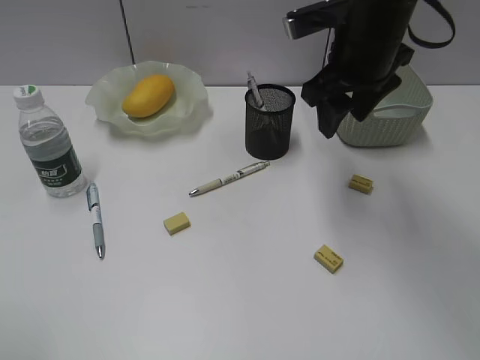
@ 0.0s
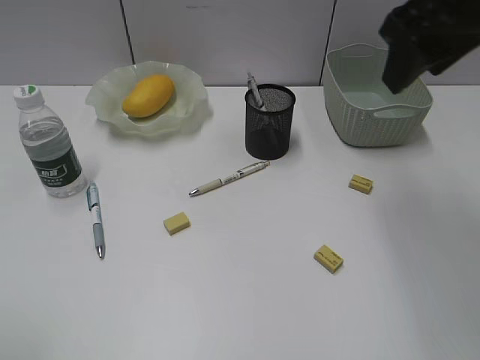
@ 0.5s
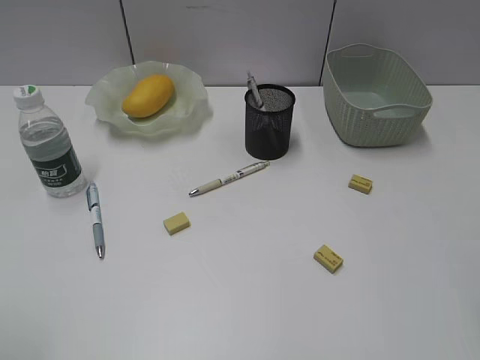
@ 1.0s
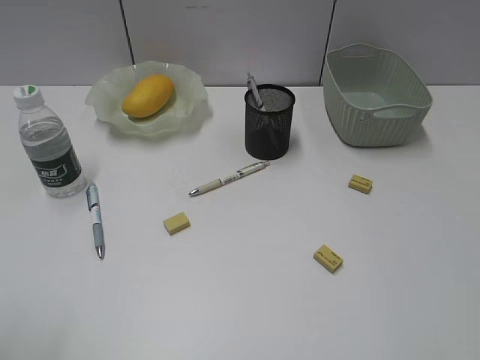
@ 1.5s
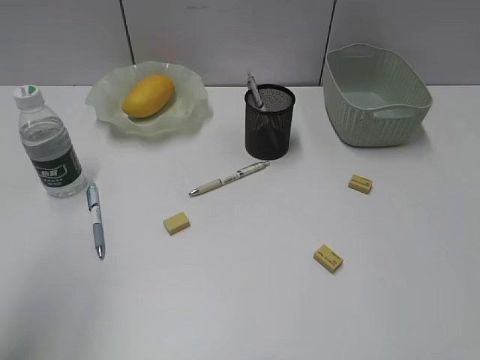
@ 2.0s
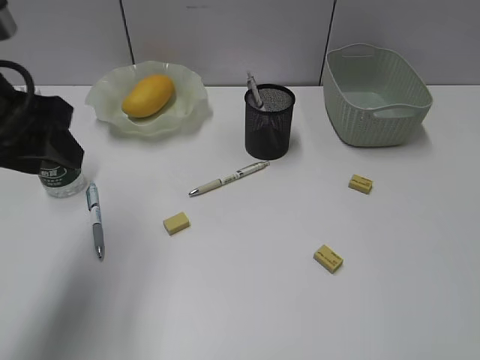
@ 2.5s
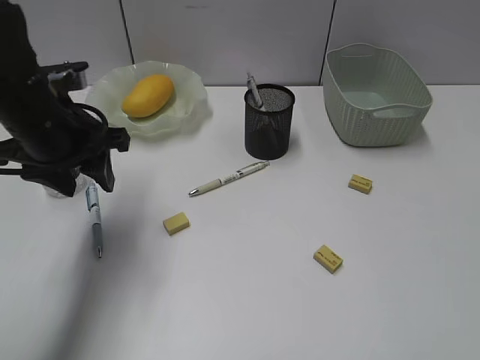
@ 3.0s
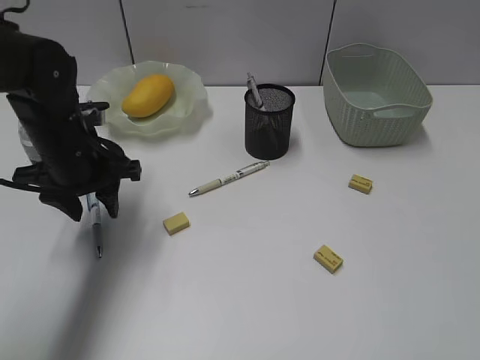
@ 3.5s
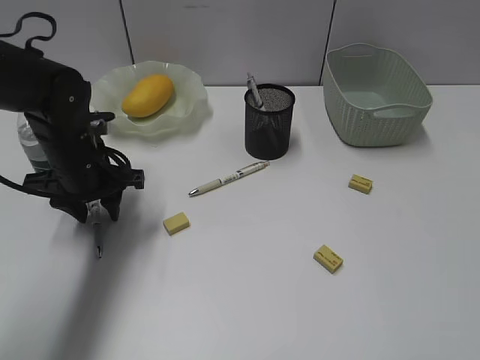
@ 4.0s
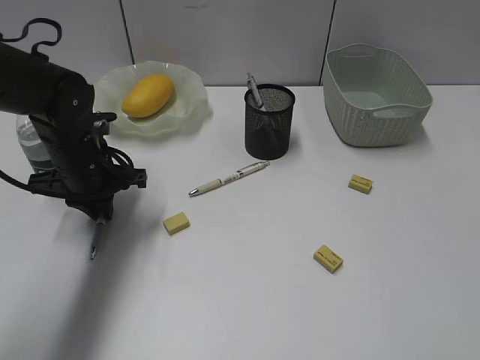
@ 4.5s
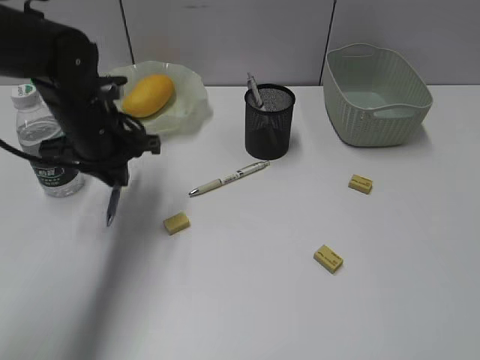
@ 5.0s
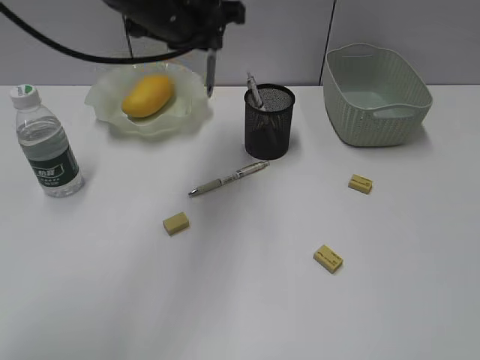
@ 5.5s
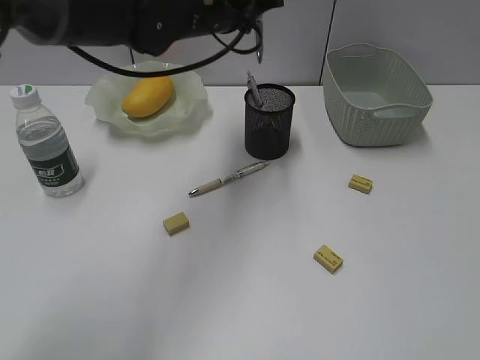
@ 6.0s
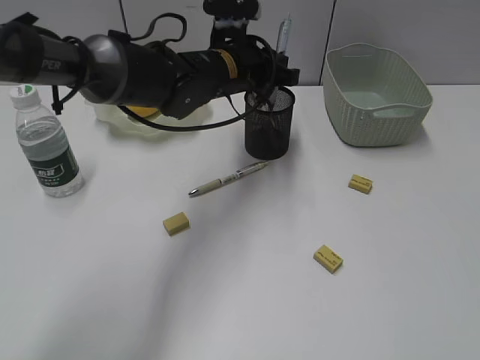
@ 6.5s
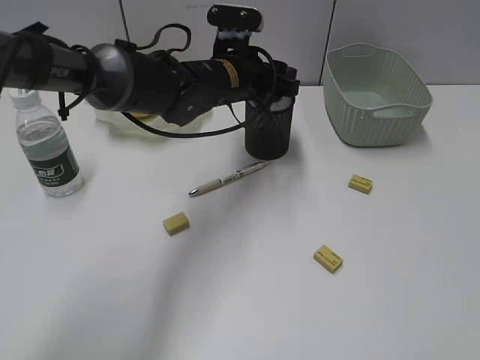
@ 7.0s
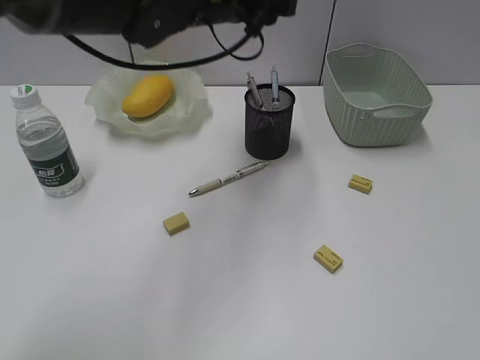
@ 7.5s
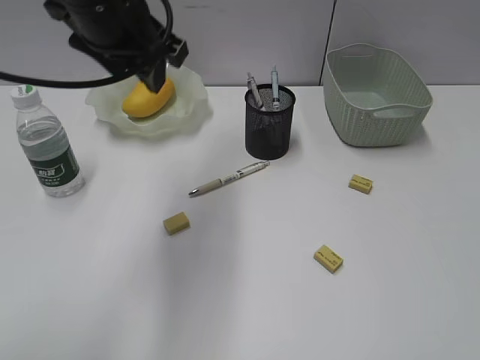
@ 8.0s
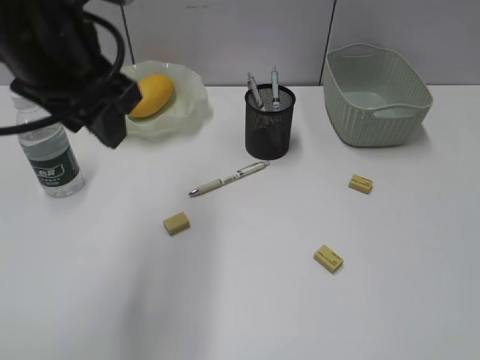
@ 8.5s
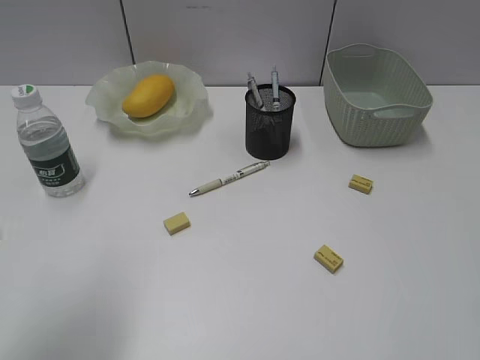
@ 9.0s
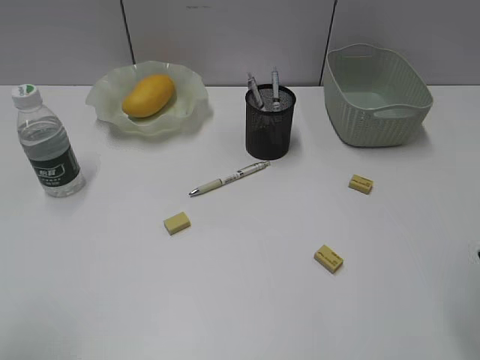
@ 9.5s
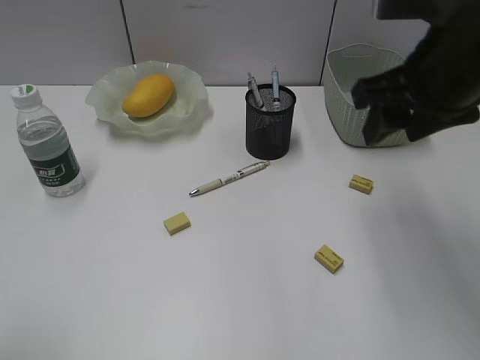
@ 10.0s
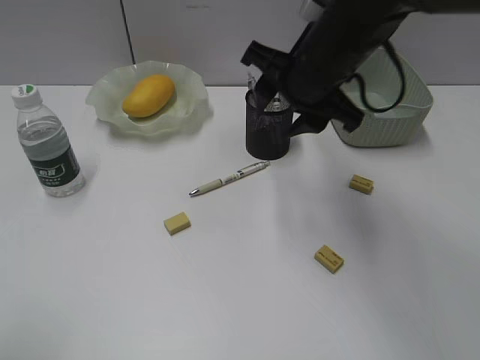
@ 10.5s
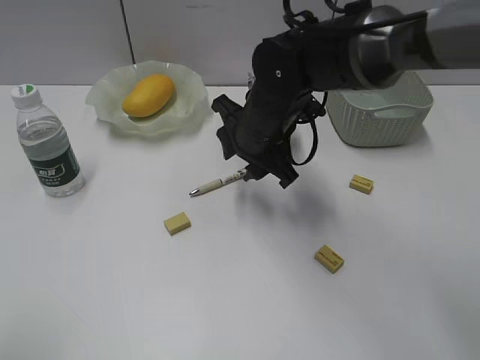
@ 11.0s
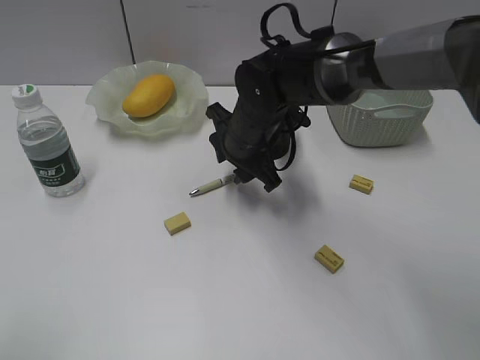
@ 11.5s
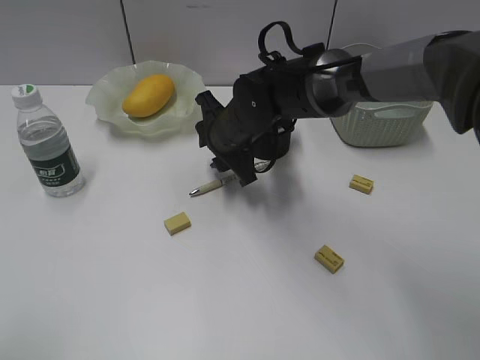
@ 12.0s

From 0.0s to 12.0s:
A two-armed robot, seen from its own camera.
Step, from 0.0s to 4.5s: Grasp the blue pen with left gripper.
Step, from 5.0s to 7.0s: Place the blue pen in pen holder with left gripper.
From 0.0s to 2.0s: The left gripper moves forward, some 10 cm; the right gripper goes approximately 35 cm backward and to the right.
From 2.0s to 4.0s: The left gripper travels forward, downward and to the right by roughly 30 cm.
From 4.0s to 6.0s: The left gripper travels to the right, upward and forward by roughly 20 cm, and closes.
From 6.0s to 8.0s: The left gripper is displaced backward and to the left by some 10 cm, travels downward and back again, about 10 cm each way, and opens.
From 8.0s to 10.0s: The right gripper shifts approximately 25 cm forward and to the left. The left gripper shifts about 35 cm backward and to the left.
From 10.0s to 12.0s: The right gripper shifts some 25 cm to the left, downward and forward.

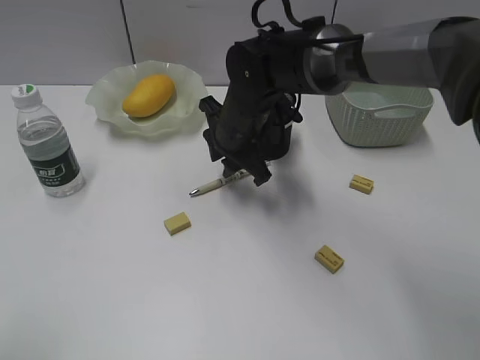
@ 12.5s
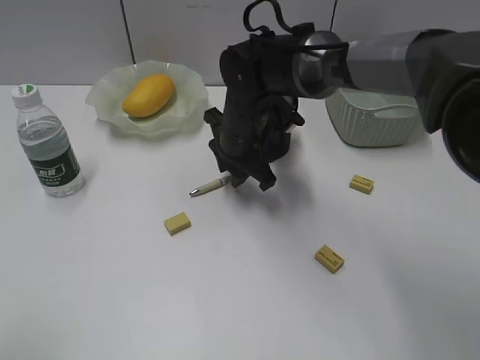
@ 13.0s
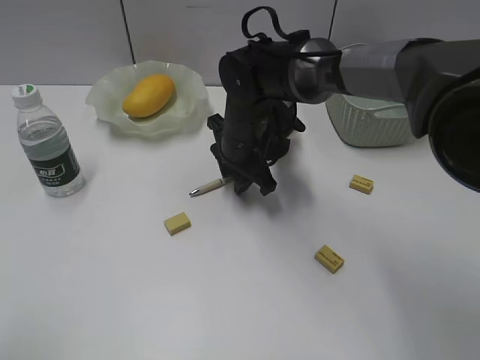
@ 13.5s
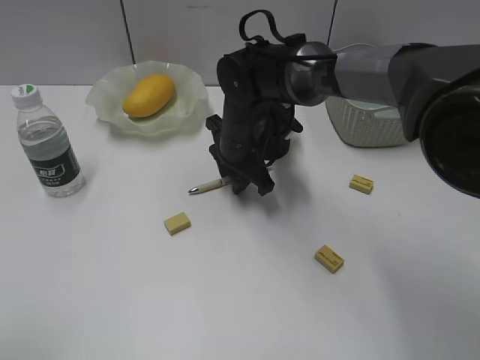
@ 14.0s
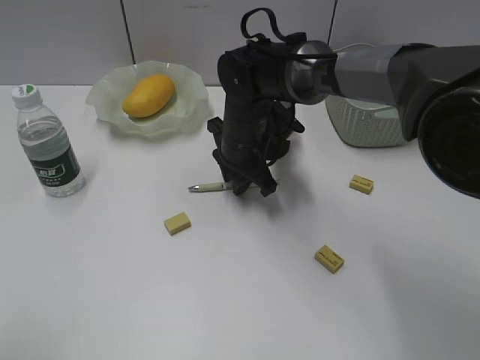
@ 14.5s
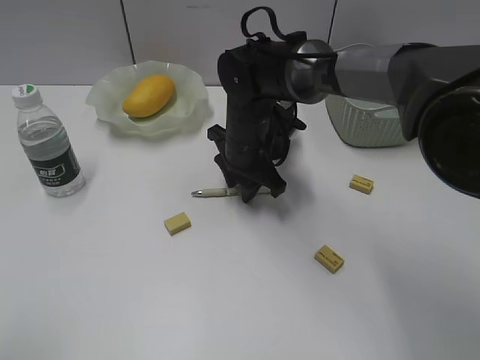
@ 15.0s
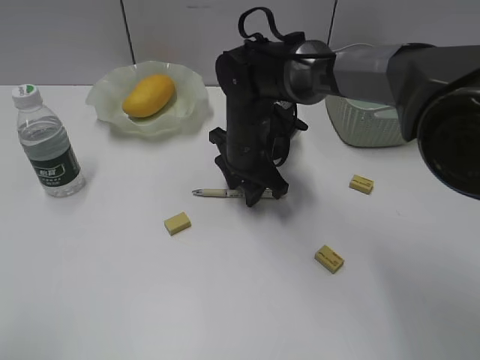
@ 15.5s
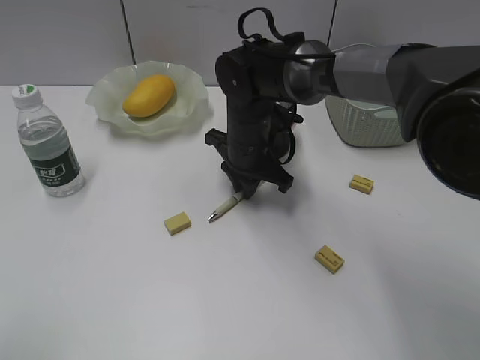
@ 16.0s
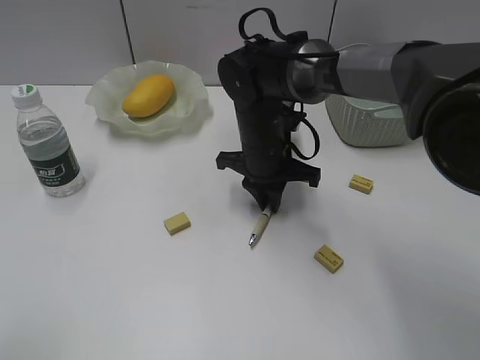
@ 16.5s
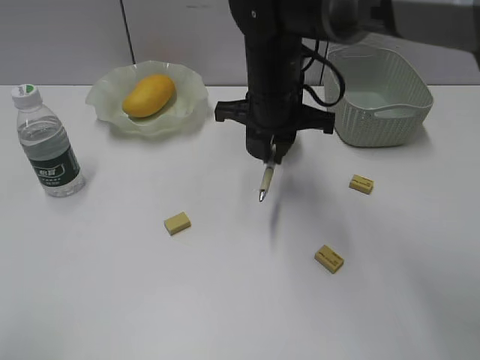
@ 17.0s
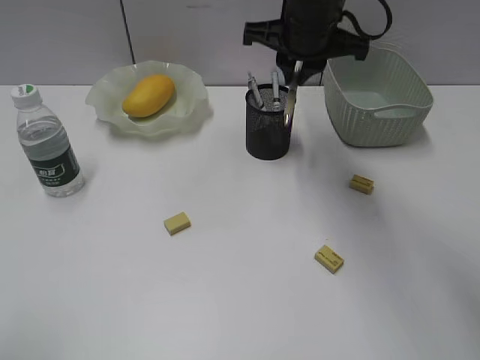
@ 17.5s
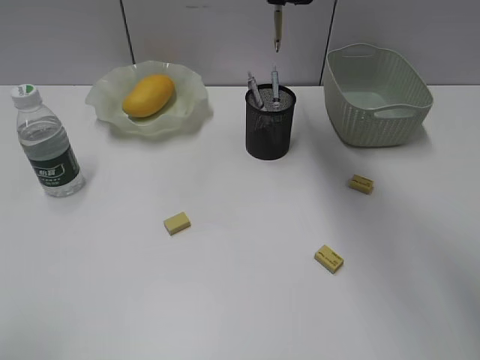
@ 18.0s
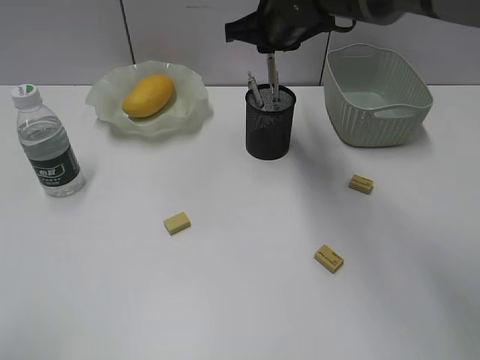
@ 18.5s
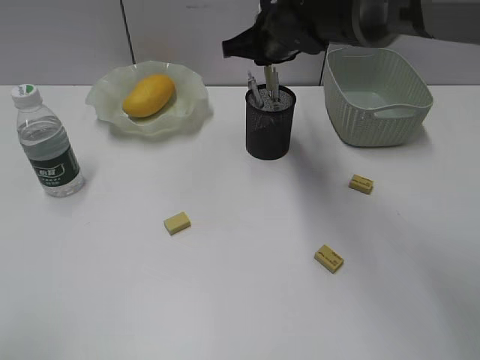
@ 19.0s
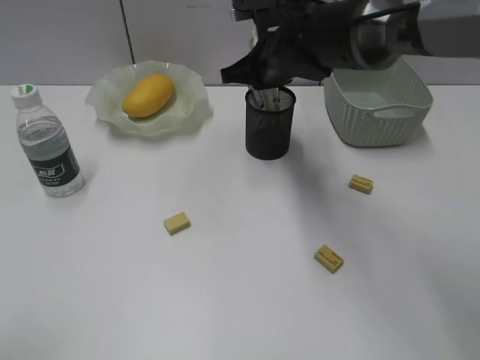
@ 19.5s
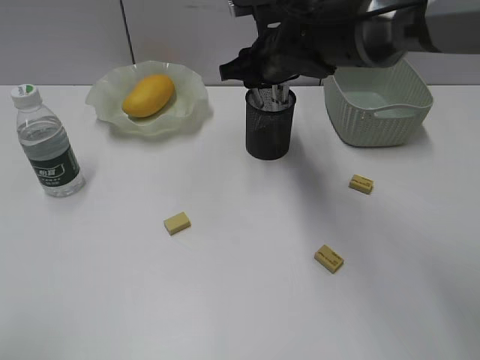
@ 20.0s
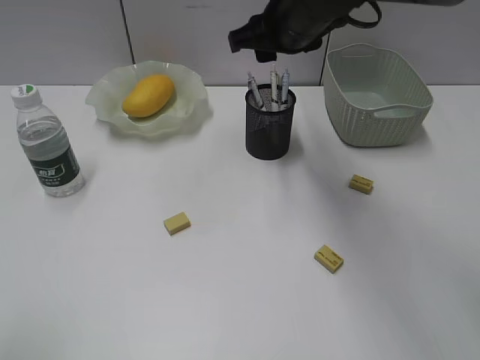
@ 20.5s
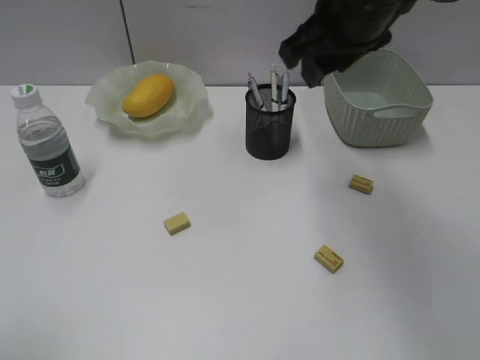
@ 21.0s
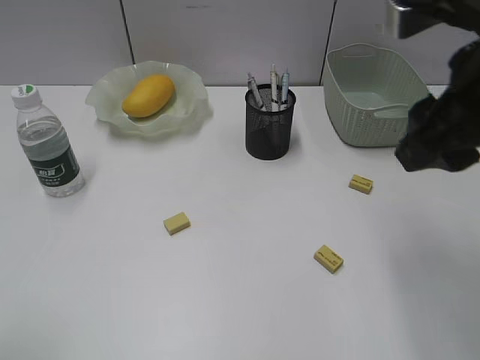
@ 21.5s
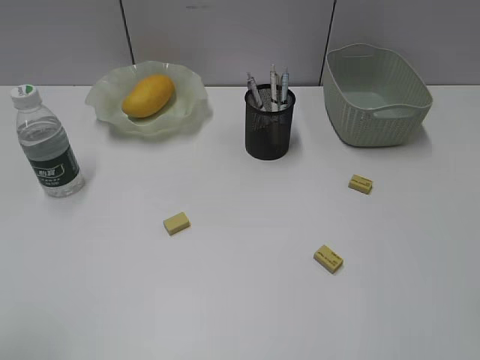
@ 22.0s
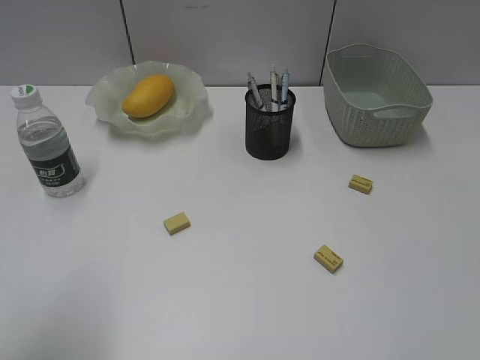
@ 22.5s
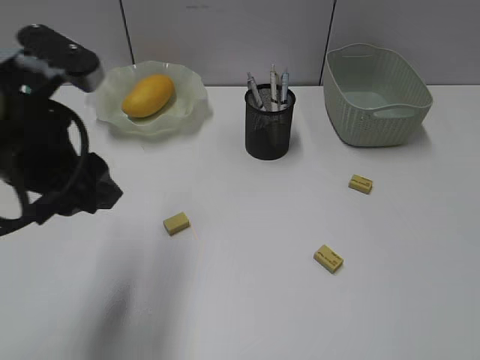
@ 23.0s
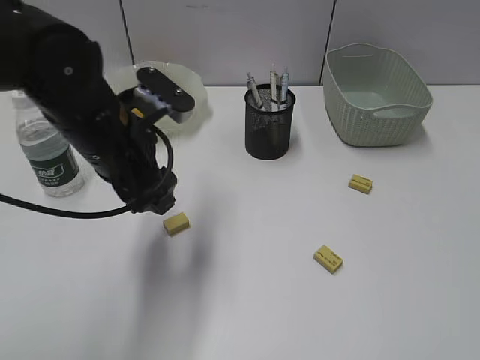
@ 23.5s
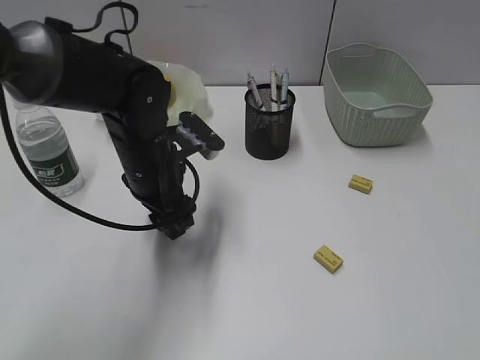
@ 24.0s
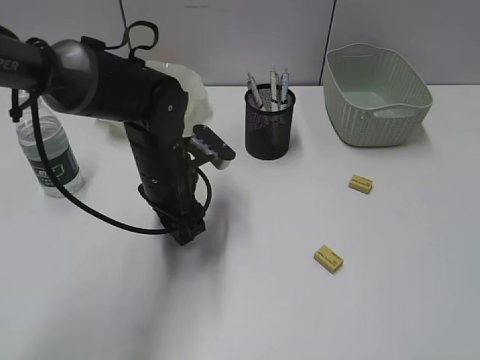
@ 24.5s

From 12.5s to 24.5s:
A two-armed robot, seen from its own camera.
Step, from 12.5s to 16.0s: Grasp the yellow pen with right gripper.
Step, from 16.5s to 20.0s: Place the yellow pen in pen holder with right gripper.
From 12.5s to 14.5s: The grippers stay close to where they were, moving slightly.
From 16.5s to 18.5s: The right gripper is displaced upward and forward by about 15 cm.
From 18.5s to 20.5s: The right gripper is displaced backward by approximately 5 cm, and opens.
From 20.5s to 22.5s: The left gripper ends up about 5 cm from where it was, while the right gripper travels backward and to the right by about 40 cm.
From 22.5s to 24.5s: The left gripper goes about 35 cm forward, to the right and downward.

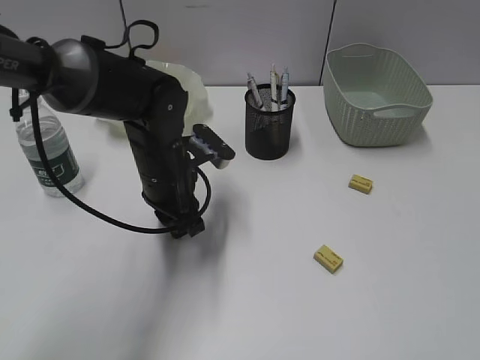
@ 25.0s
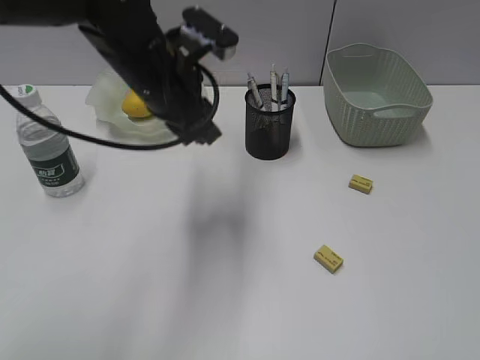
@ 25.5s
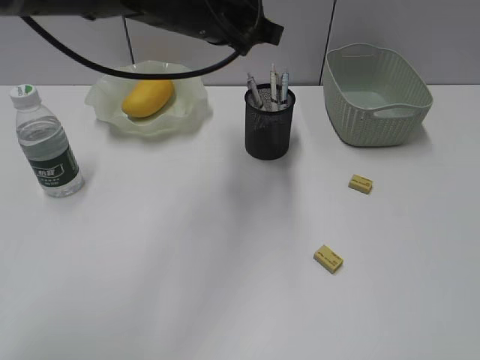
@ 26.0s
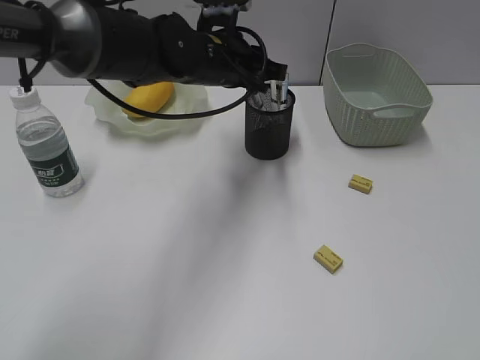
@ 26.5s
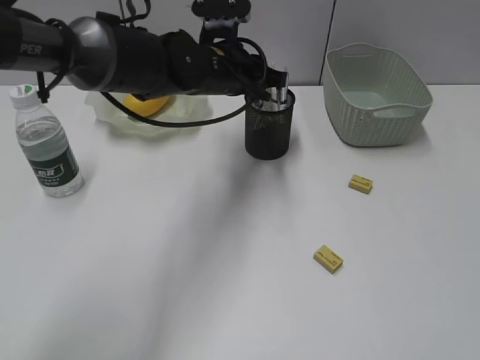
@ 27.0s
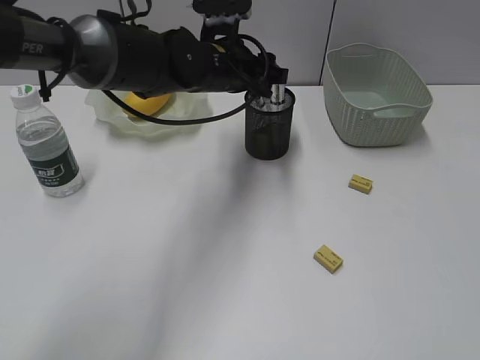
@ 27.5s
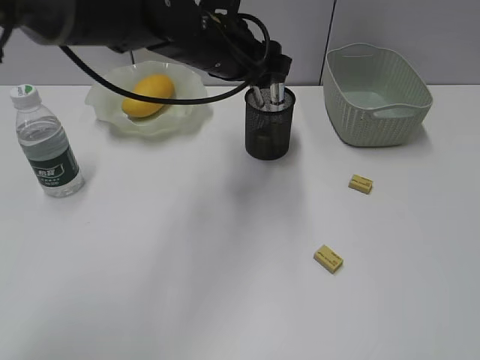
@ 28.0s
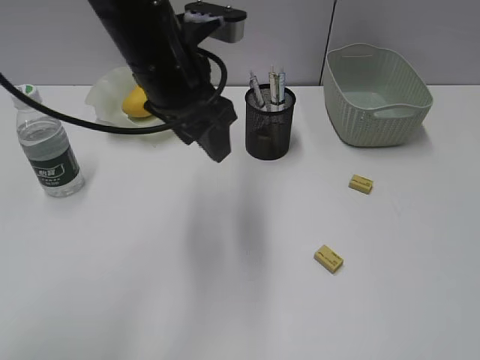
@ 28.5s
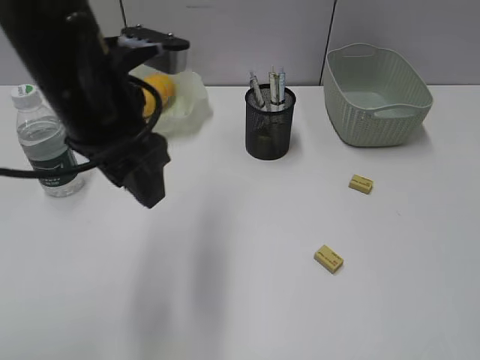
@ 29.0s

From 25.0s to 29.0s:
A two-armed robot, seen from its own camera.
Step, from 25.5s to 27.5s: Place the eraser in pen holder with left gripper.
From 25.0s to 27.0s: The left gripper heads forward, upward and to the right, covering about 15 cm.
From 27.0s to 29.0s: The left gripper shifts some 20 cm backward, to the left and upward, and opens.
